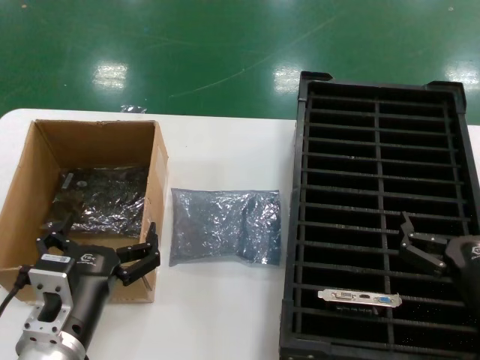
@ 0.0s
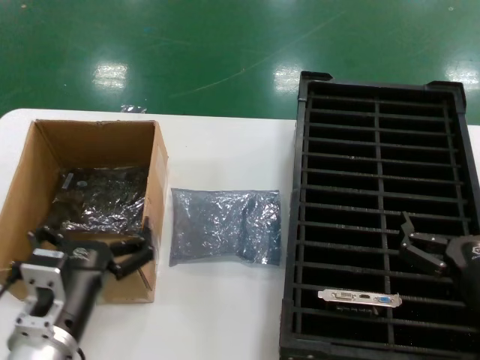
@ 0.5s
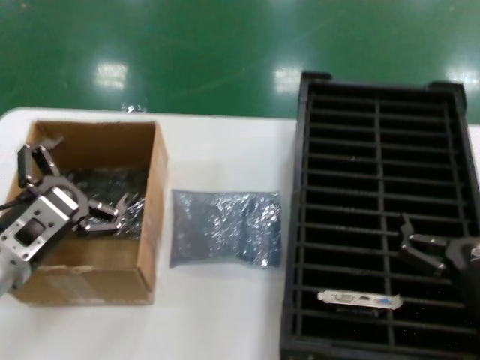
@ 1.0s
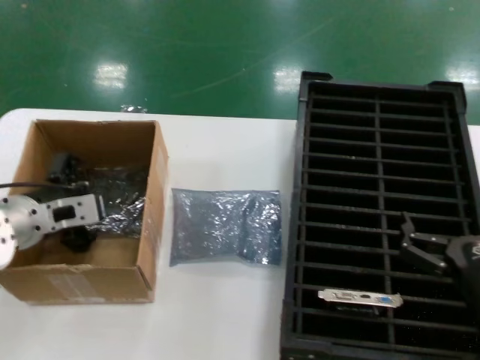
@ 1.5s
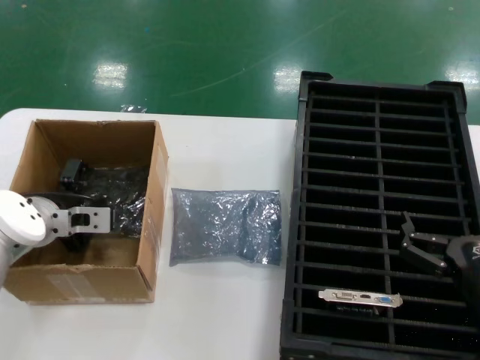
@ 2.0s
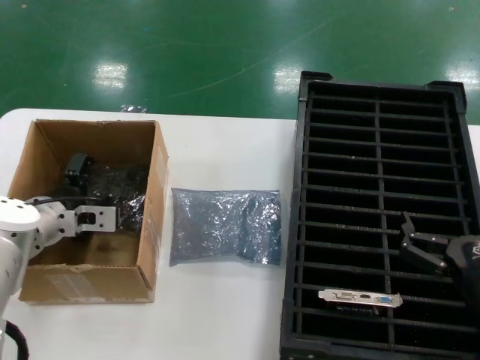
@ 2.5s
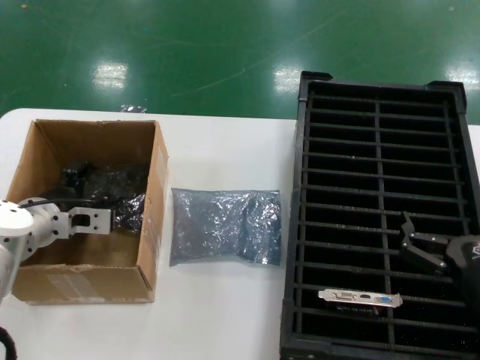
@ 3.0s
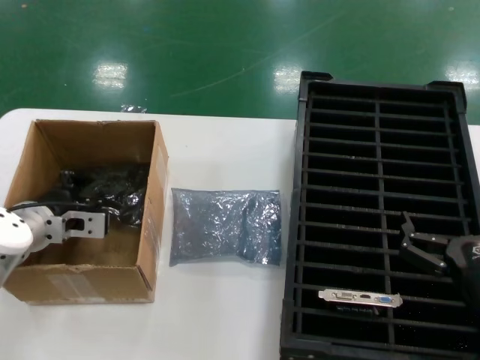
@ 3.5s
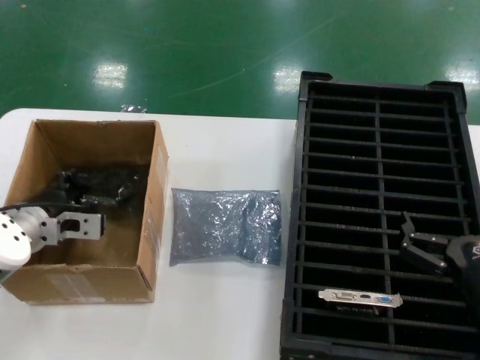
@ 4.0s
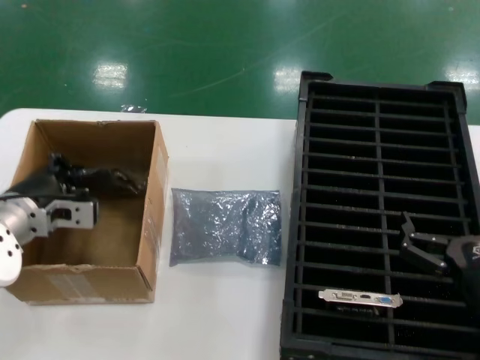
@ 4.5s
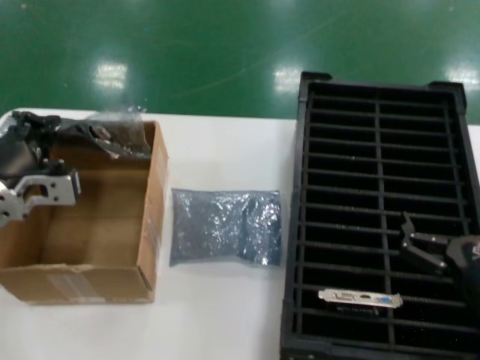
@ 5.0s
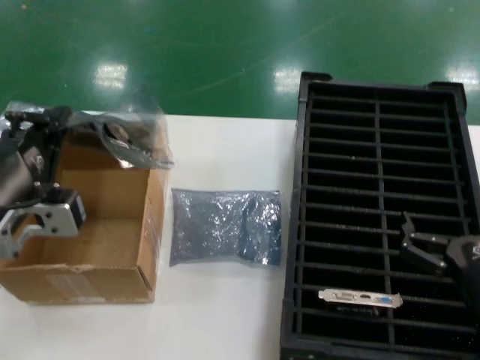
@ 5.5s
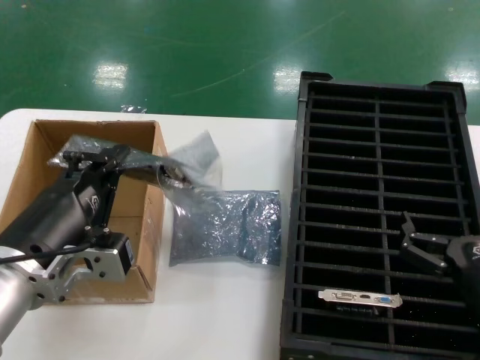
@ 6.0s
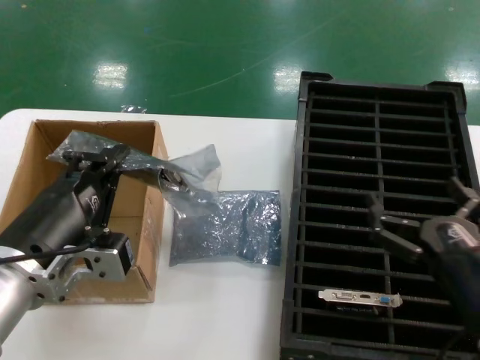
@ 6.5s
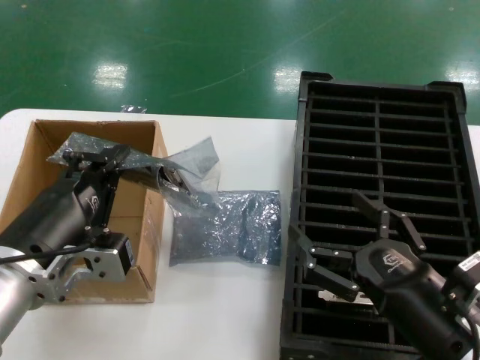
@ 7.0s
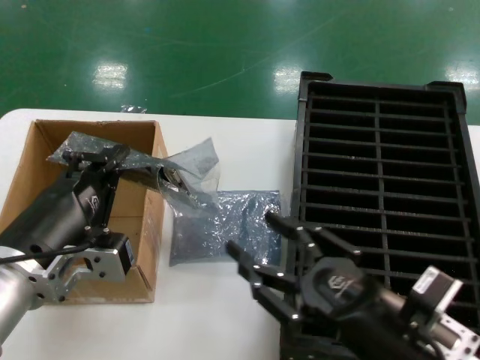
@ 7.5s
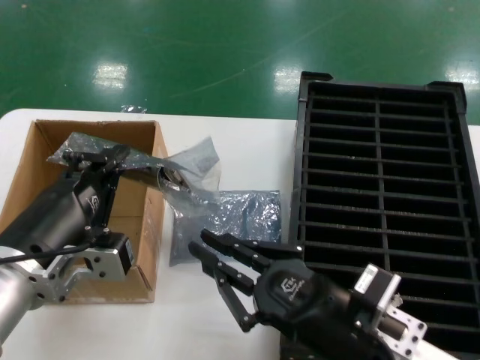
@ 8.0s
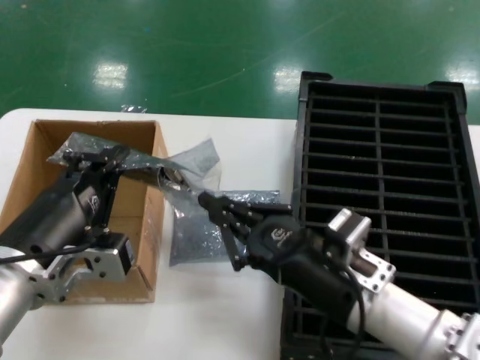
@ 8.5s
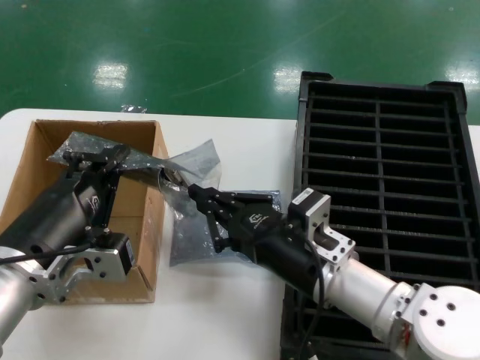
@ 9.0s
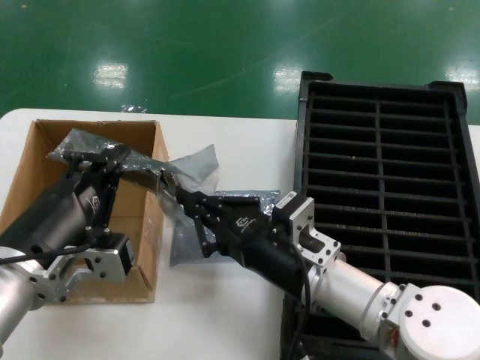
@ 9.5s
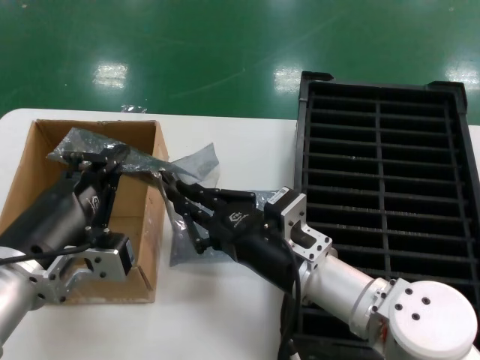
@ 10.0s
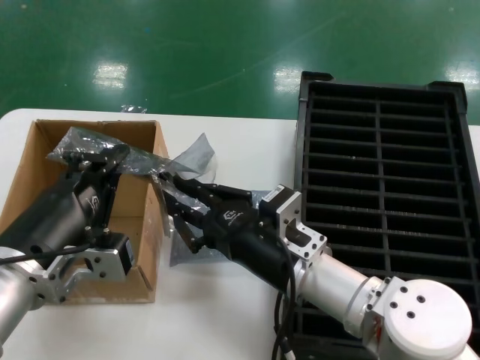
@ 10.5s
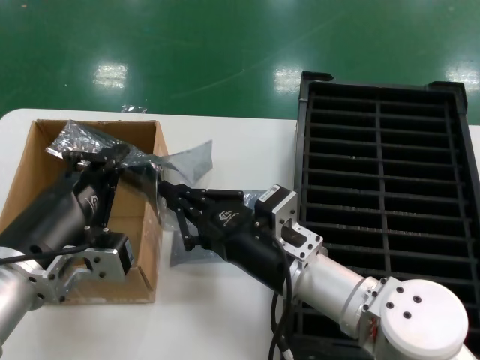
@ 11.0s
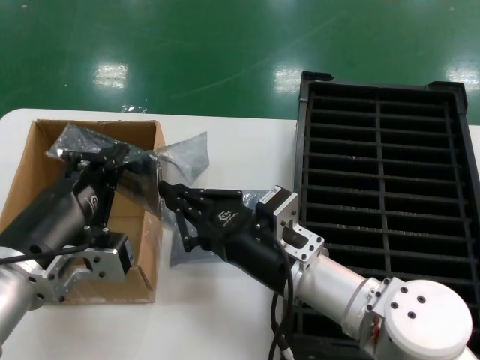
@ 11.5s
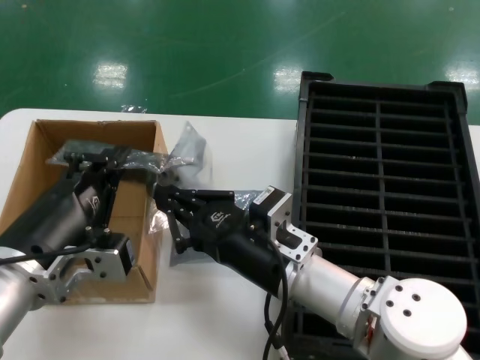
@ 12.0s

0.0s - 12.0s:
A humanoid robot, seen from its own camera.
Task of the whole recording: take out graphics card from box remove packaging put into black container.
Step, 0.0s - 4.0s: Grasp the bag.
Step, 4.5s - 6.0s: Lift the bag.
0.0s - 2.0s: The left hand is displaced forward and to the left by some 25 cm.
2.0s - 4.0s: The hands move only a little.
4.0s - 6.0s: The left hand moves backward and to the right, some 25 cm.
6.0s - 8.0s: The right hand heads to the left, covering about 10 cm.
8.0s - 10.0s: The right hand is displaced forward and to the left by approximately 15 cm.
10.0s - 12.0s: The hands stay close to where they were, moving slightly.

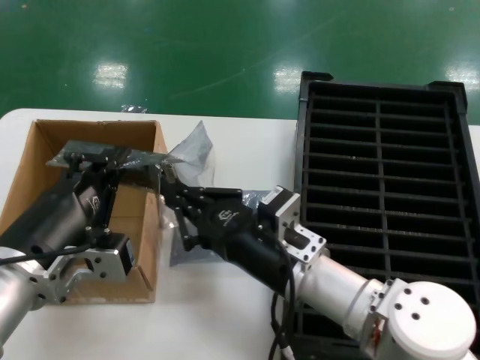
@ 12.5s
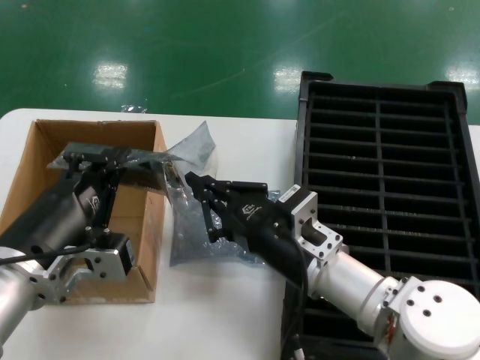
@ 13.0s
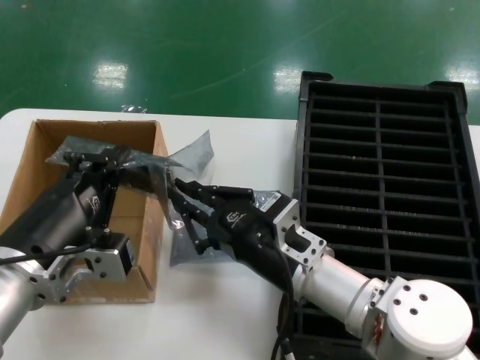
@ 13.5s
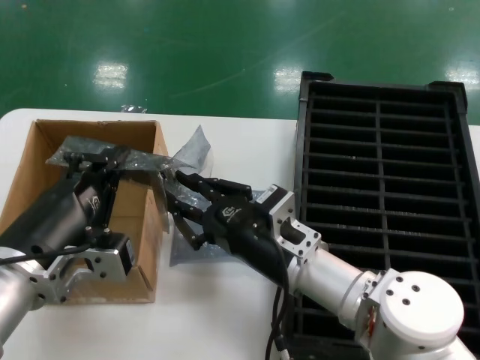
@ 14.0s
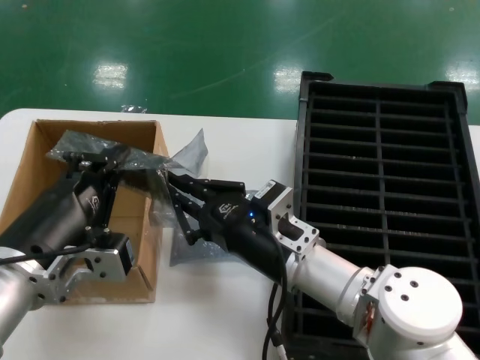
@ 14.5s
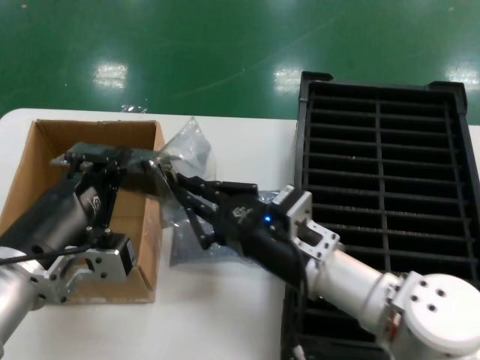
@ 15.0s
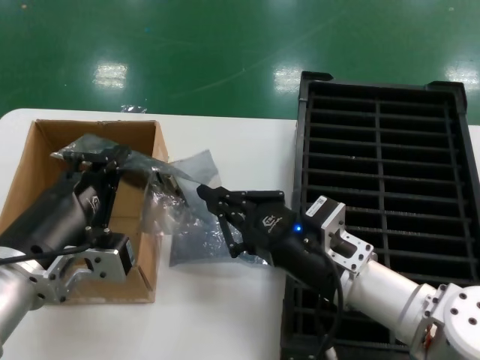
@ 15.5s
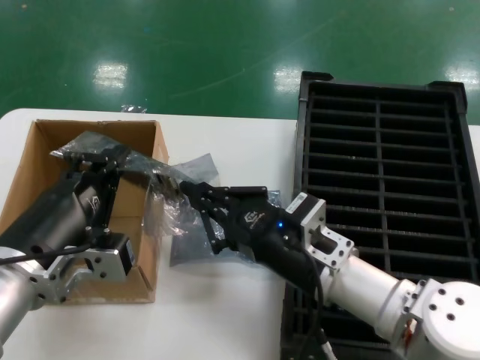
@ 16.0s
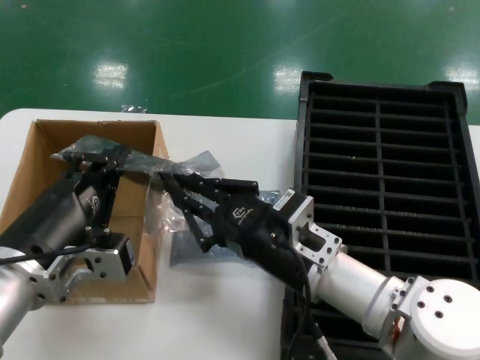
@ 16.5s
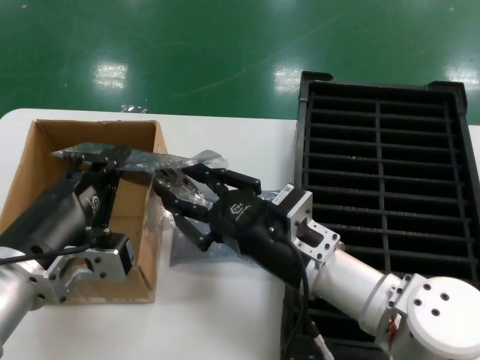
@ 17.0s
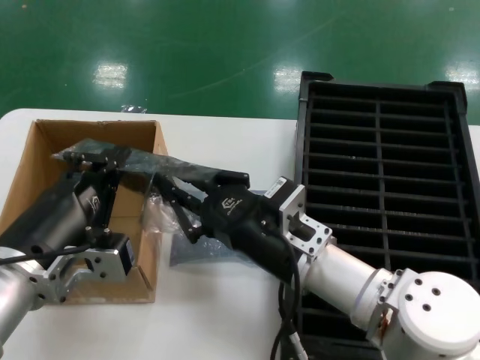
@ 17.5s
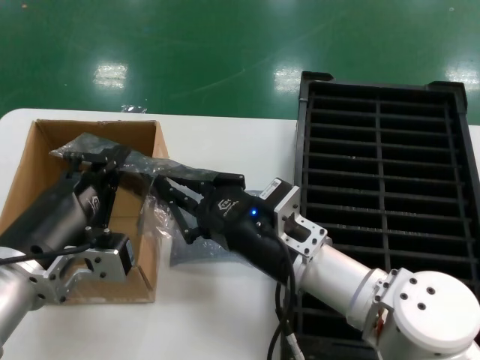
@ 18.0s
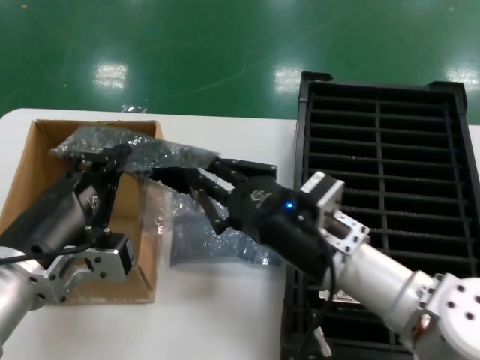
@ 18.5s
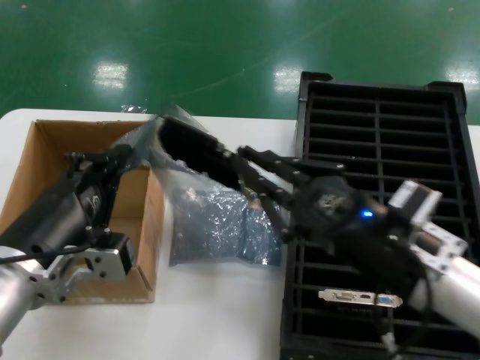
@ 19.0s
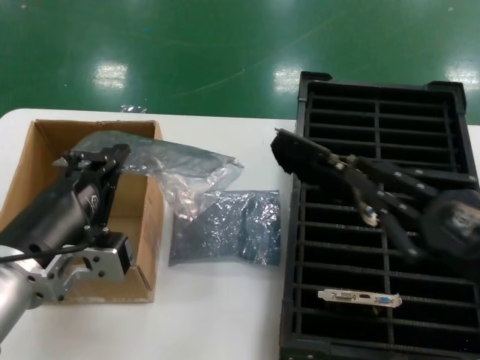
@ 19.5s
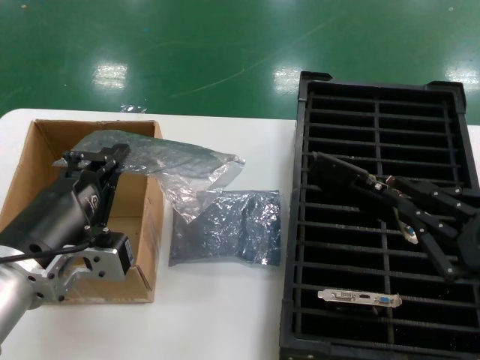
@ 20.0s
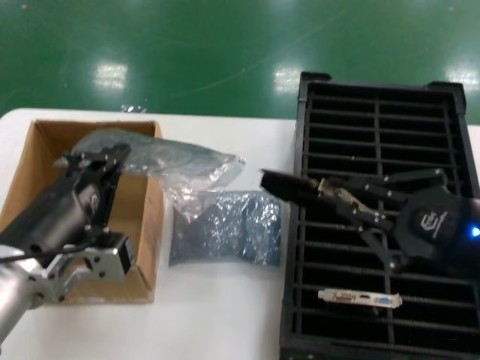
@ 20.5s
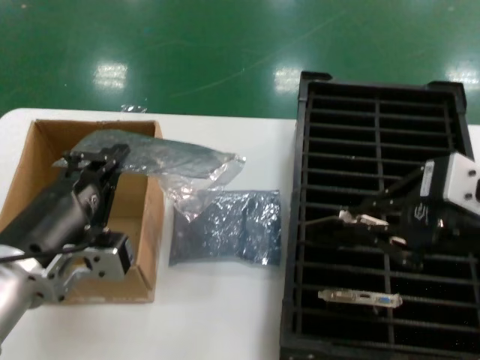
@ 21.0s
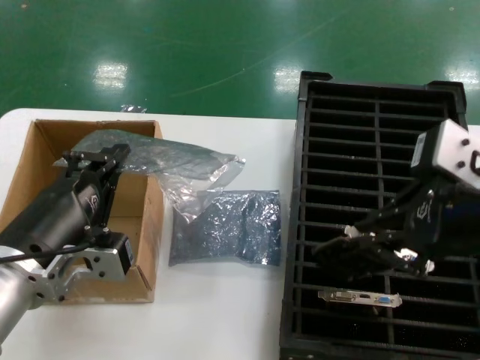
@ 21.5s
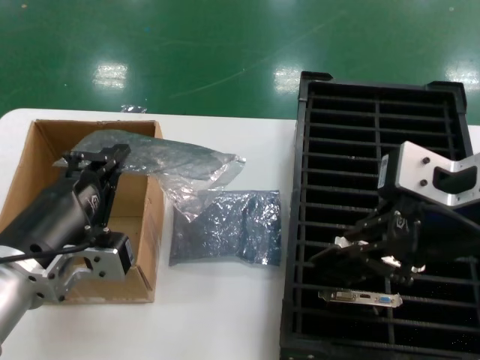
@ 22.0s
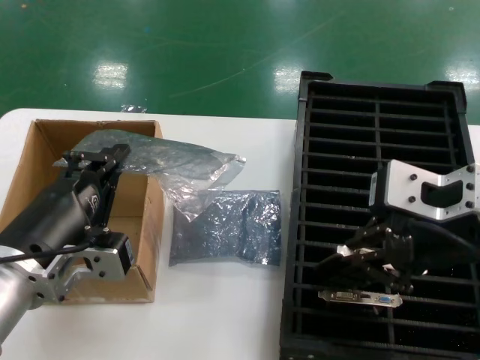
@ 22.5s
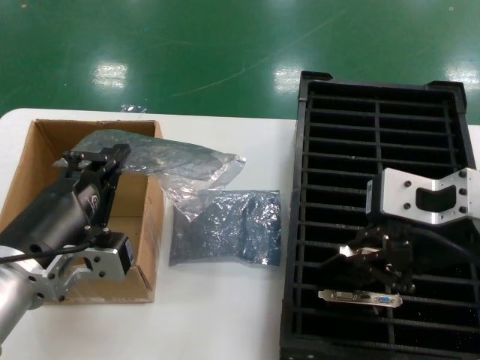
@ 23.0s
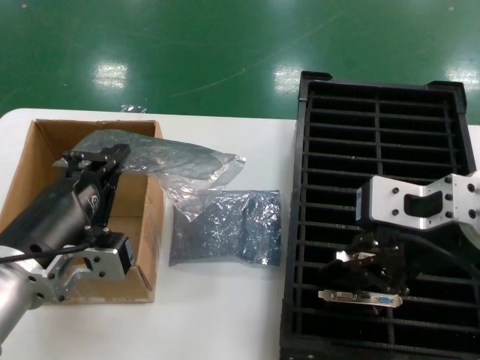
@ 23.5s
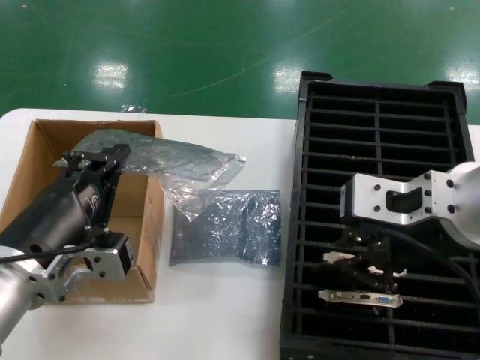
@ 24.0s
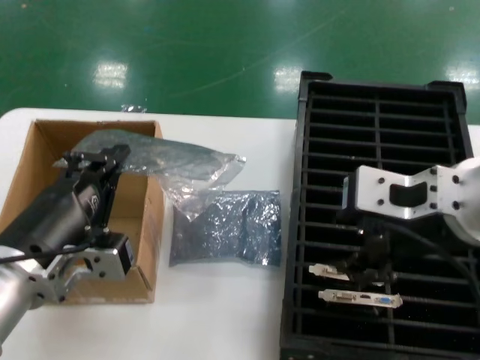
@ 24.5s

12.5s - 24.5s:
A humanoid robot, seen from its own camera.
Task of the whole recording: take out graphics card from box remove packaging put into black container.
Step, 12.5s - 19.0s: Take out the hard disk of the bag.
Step, 19.5s - 24.0s: Place the hard disk in the hard disk enclosure.
12.5s - 18.5s: The hands move only a little.
18.5s - 20.5s: The right hand heads to the right, upward and backward, covering roughly 20 cm.
20.5s - 22.5s: The right hand travels upward and to the left by some 15 cm.
22.5s - 24.5s: The hands move only a little.

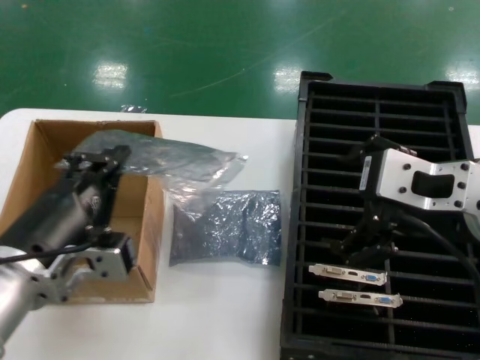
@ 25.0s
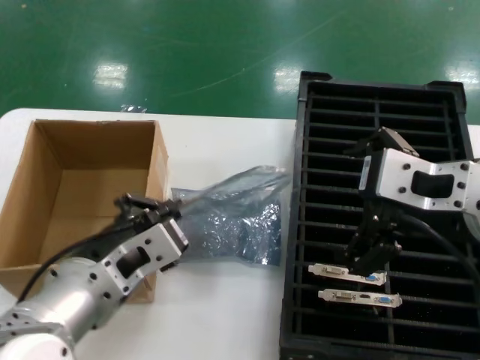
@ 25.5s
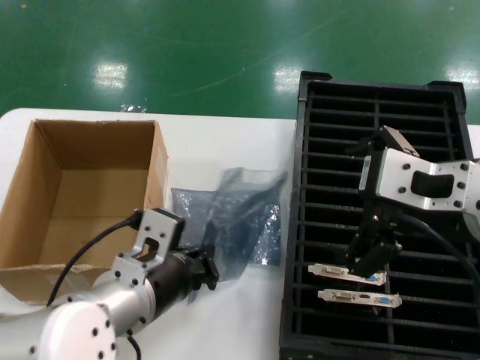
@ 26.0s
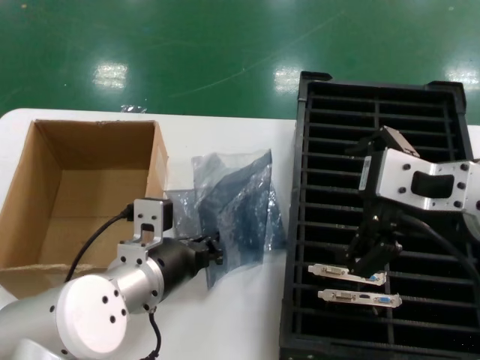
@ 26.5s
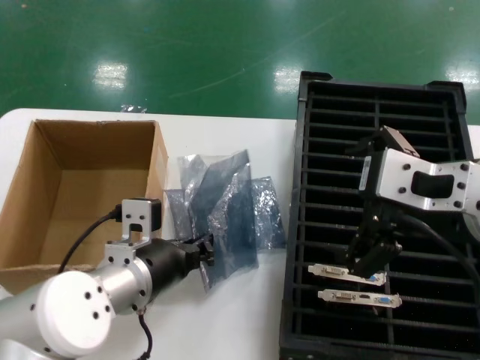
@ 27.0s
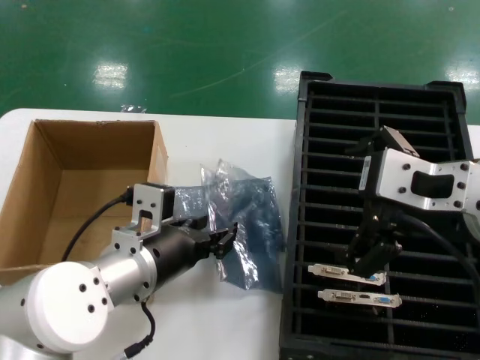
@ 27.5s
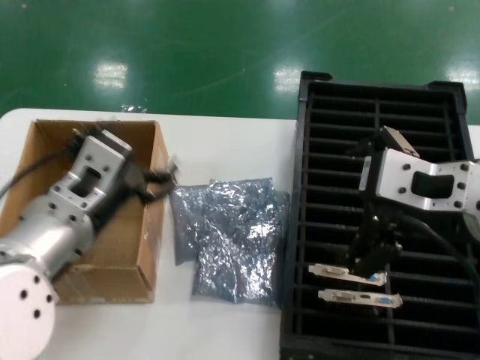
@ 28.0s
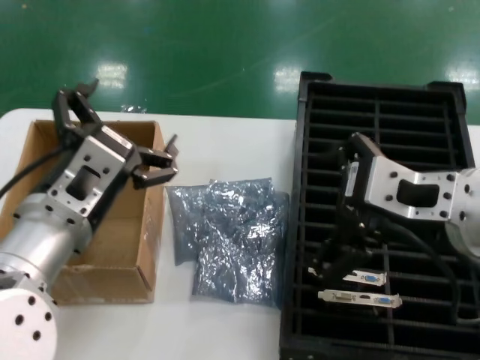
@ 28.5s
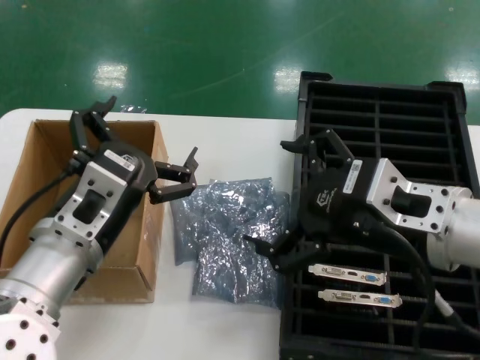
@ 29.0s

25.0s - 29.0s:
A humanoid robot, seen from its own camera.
Task of the whole recording: take out graphics card from box remove packaging put into black container.
Step, 25.0s - 27.5s: Place the down the bag.
25.0s - 27.0s: The left hand shifts approximately 10 cm forward, downward and to the right.
27.0s - 29.0s: The right hand goes about 5 cm downward; the left hand goes some 10 cm backward and upward.
